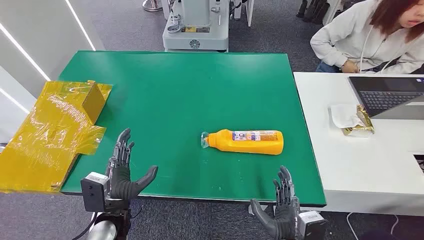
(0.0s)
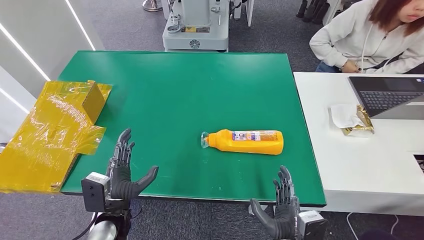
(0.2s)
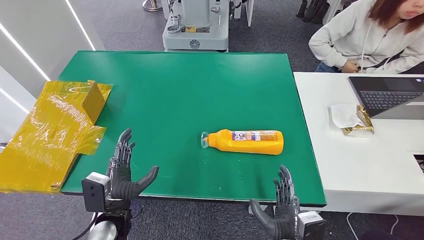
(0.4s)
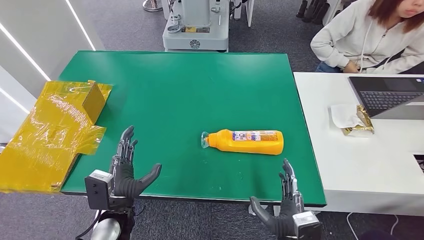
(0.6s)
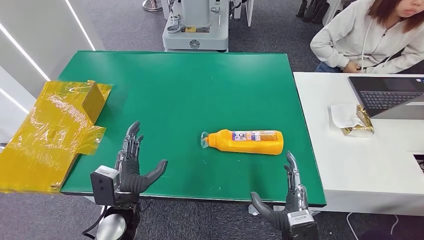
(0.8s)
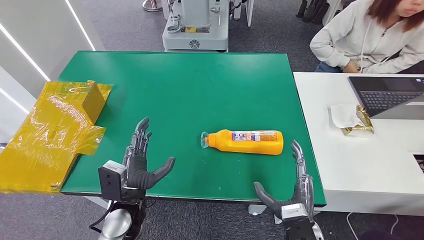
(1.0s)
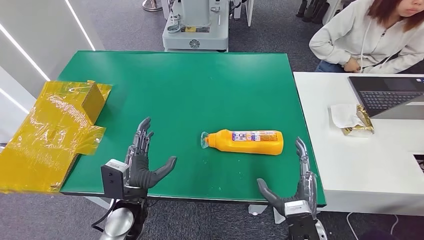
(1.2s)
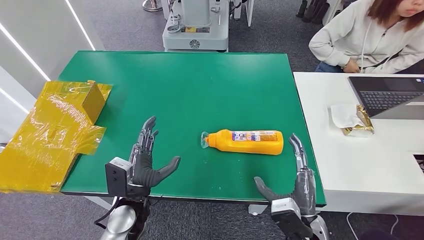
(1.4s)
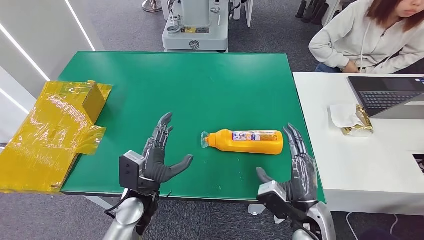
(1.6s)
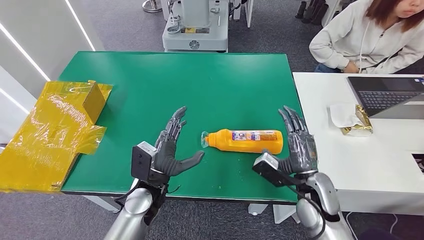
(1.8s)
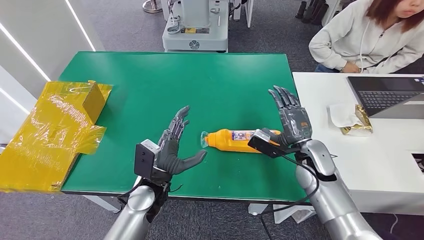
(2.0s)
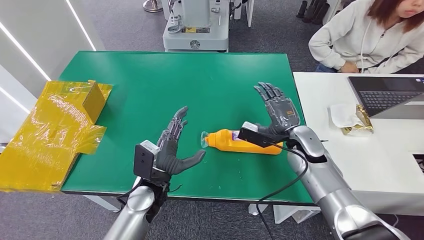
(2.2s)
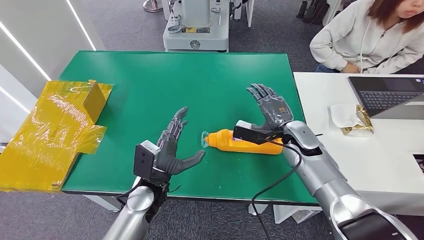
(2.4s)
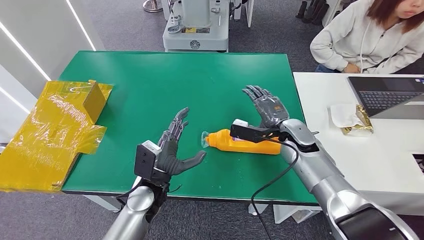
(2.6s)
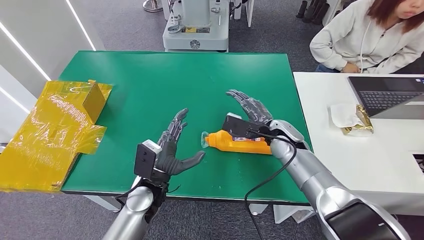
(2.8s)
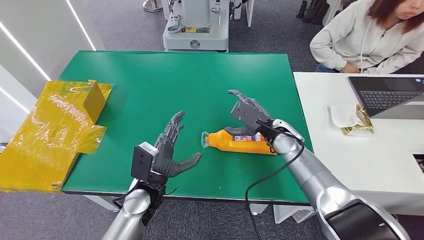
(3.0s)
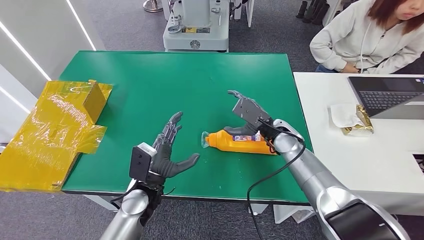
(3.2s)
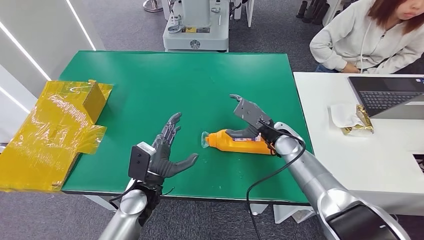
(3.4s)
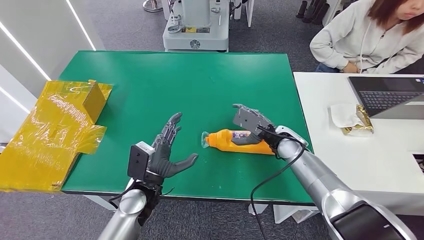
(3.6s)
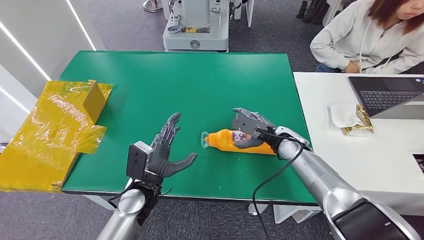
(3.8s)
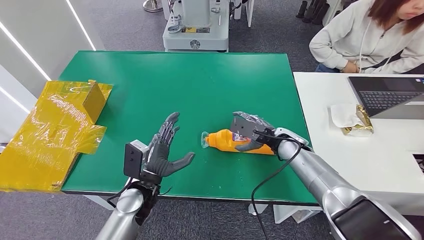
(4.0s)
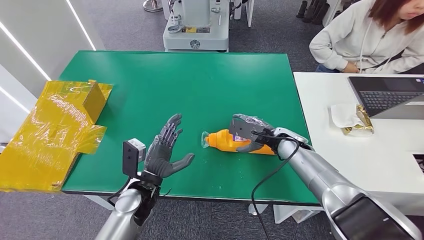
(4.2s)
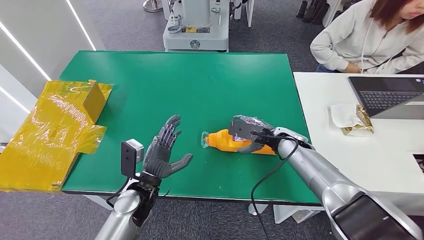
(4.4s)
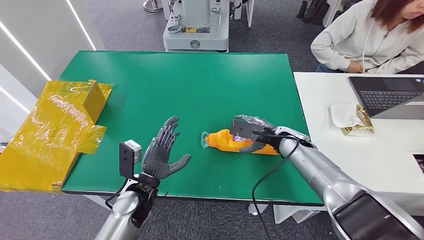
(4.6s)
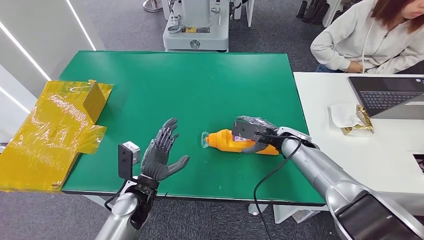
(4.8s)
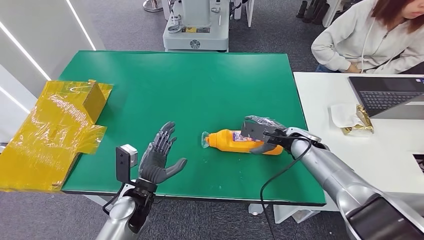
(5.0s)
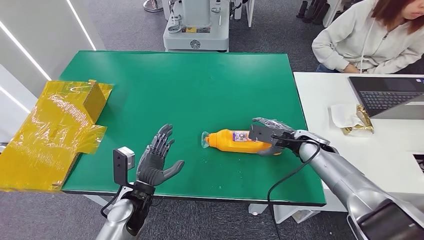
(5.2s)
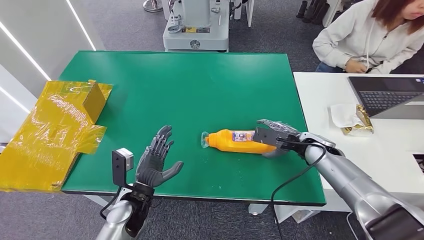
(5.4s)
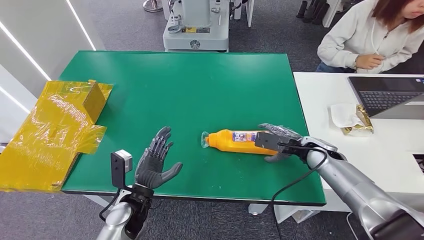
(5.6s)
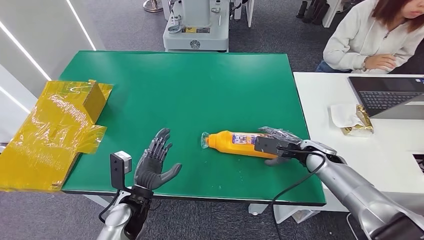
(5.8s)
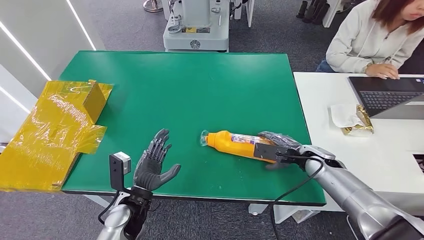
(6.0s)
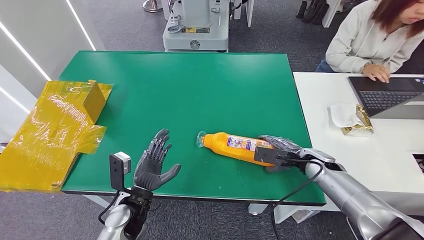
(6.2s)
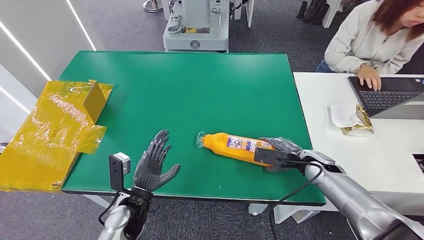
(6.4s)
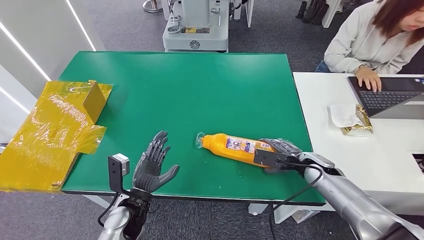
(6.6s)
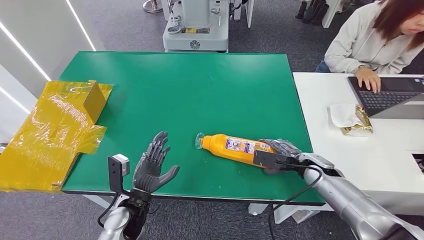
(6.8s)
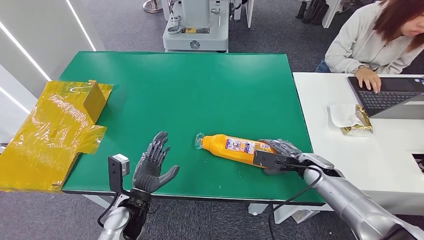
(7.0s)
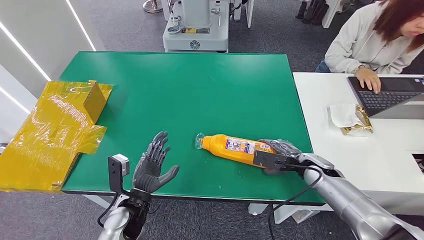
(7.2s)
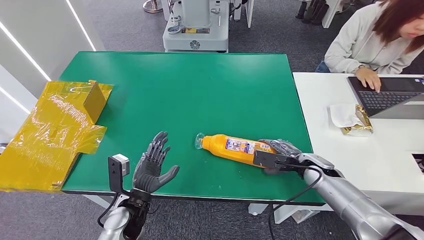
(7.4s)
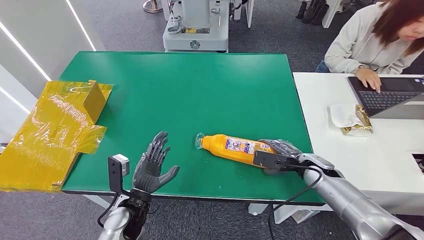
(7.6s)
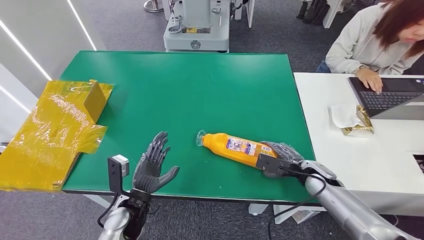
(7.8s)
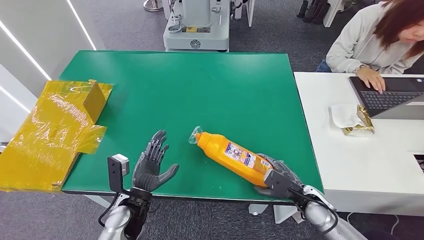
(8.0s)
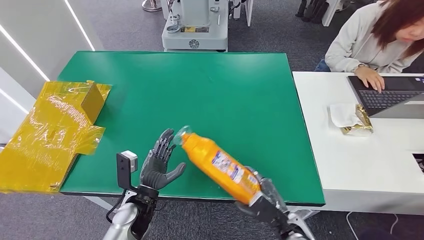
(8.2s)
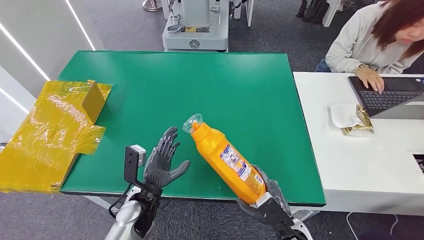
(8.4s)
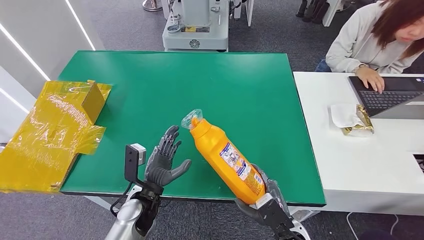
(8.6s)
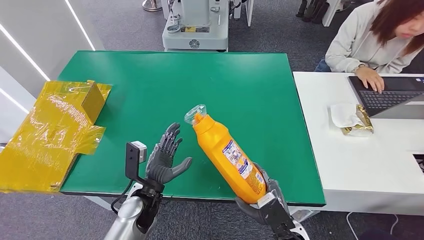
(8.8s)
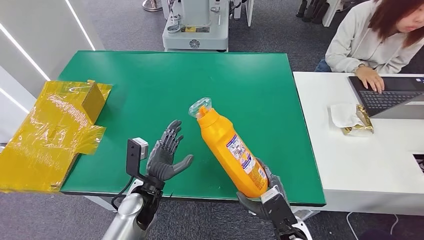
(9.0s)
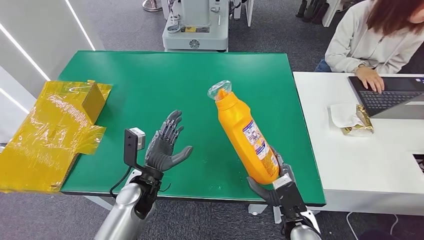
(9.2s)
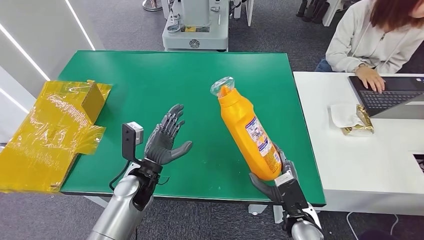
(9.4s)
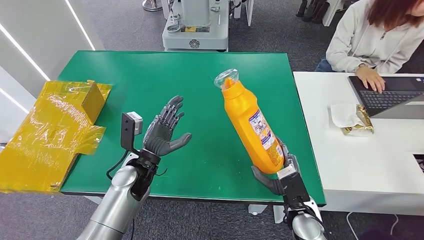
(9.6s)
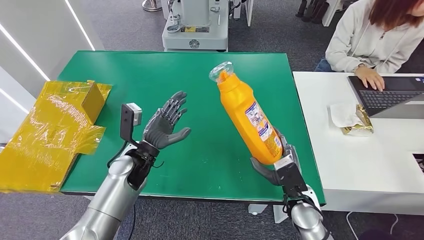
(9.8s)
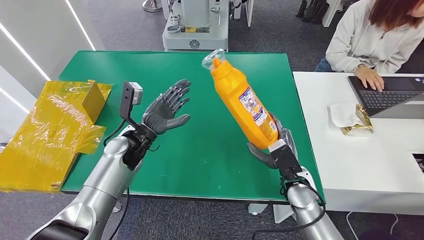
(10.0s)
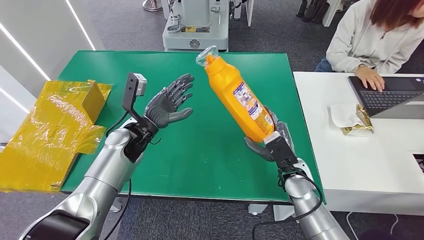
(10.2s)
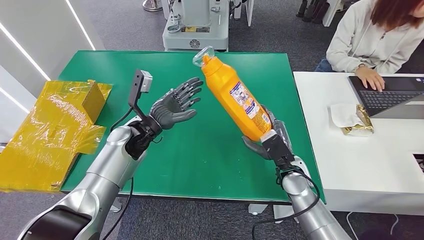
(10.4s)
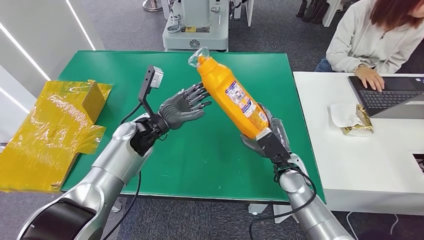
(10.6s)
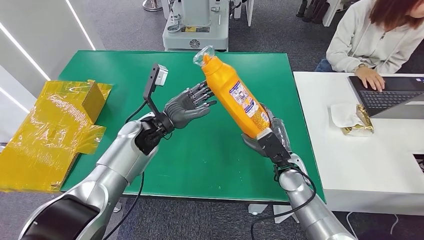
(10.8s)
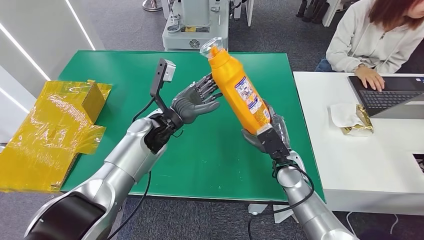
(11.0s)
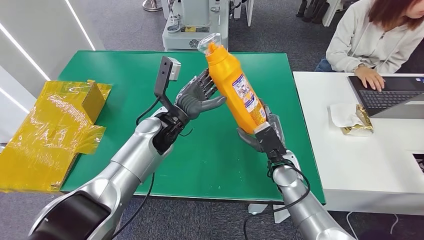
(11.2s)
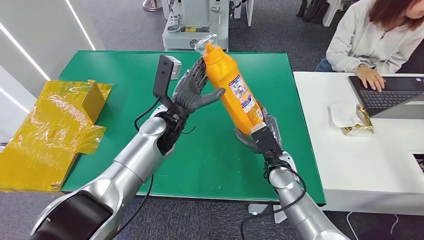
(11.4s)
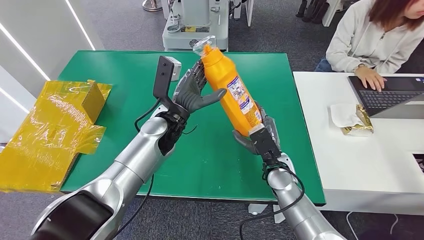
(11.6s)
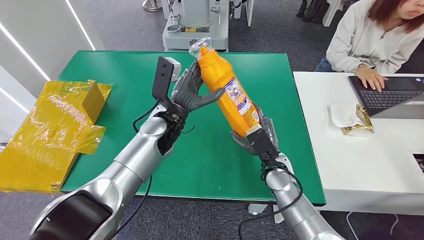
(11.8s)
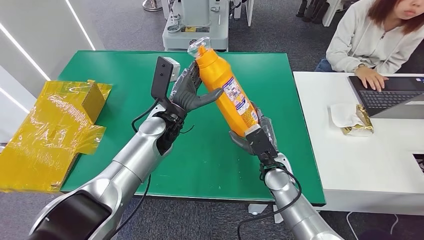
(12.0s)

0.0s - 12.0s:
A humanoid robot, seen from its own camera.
Step, 0.0s - 10.0s: Pick up the bottle from the table.
1.6s - 3.0s: The right hand heads forward, covering some 20 cm.
4.4s - 6.0s: The right hand heads to the right, covering some 10 cm.
6.0s - 7.6s: The hands make only small movements.
7.6s - 9.0s: The right hand is displaced backward and to the left by some 20 cm.
10.4s - 12.0s: The left hand heads to the right, covering some 5 cm.

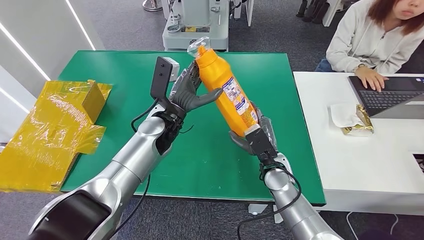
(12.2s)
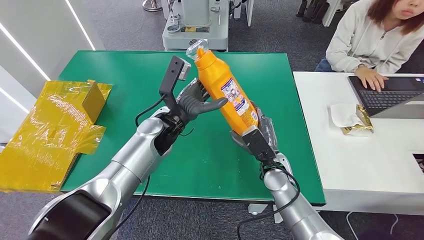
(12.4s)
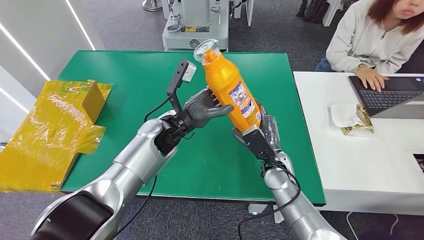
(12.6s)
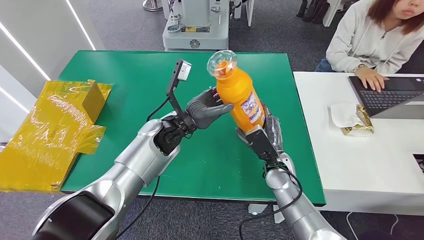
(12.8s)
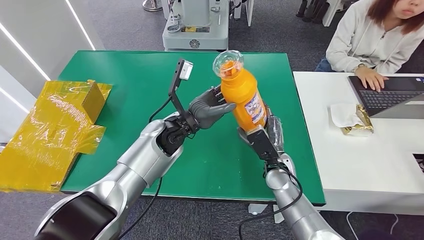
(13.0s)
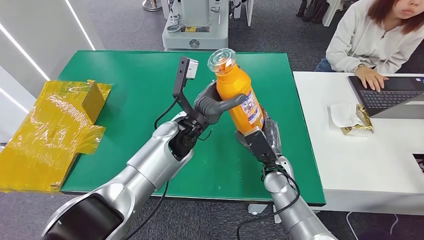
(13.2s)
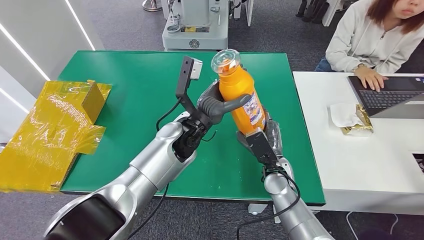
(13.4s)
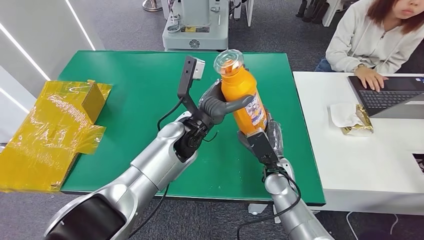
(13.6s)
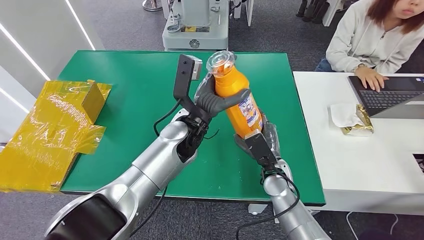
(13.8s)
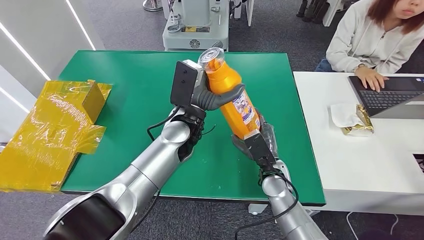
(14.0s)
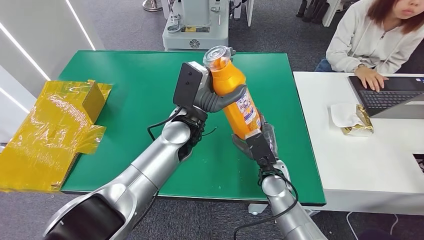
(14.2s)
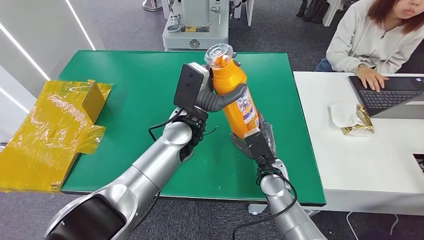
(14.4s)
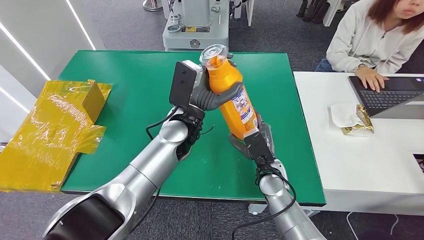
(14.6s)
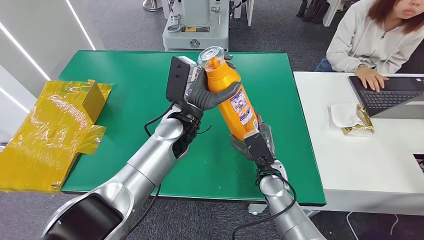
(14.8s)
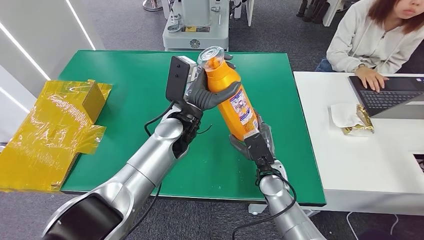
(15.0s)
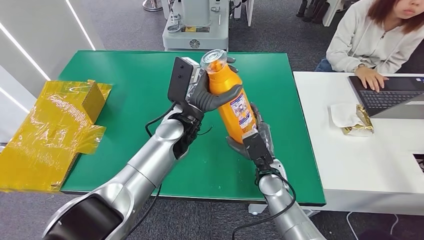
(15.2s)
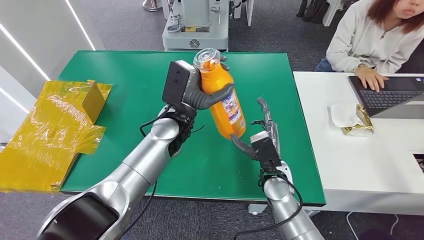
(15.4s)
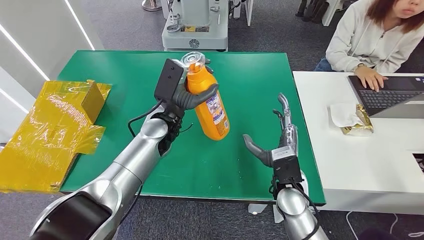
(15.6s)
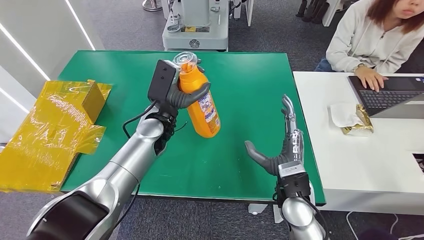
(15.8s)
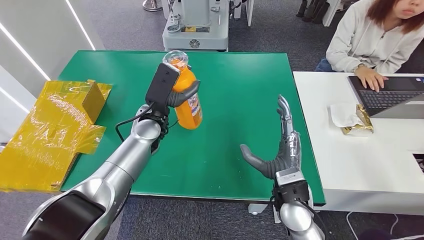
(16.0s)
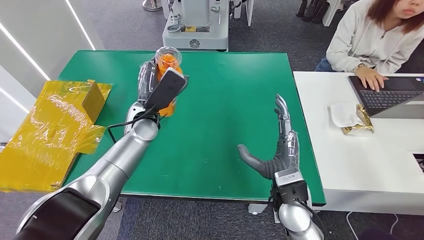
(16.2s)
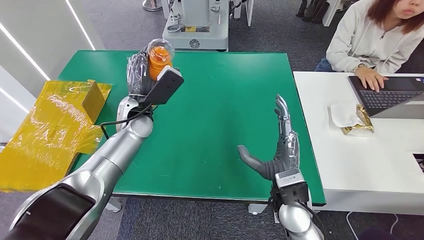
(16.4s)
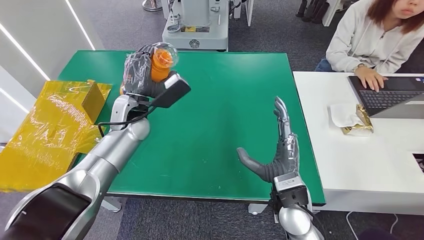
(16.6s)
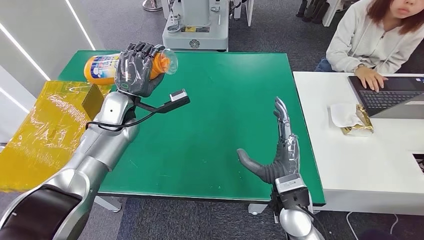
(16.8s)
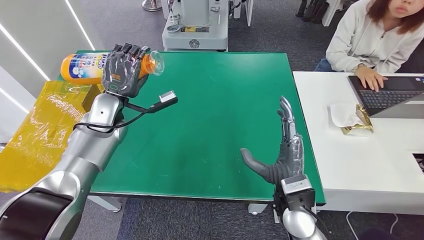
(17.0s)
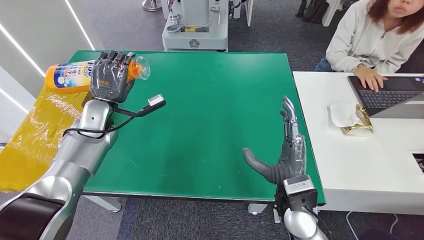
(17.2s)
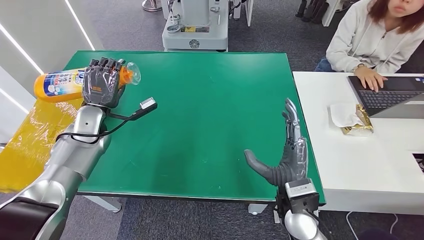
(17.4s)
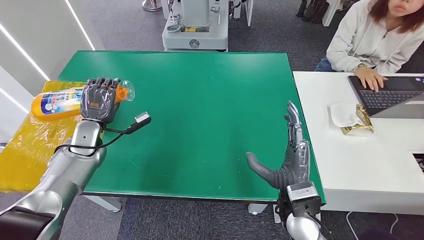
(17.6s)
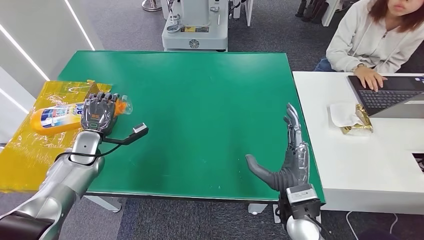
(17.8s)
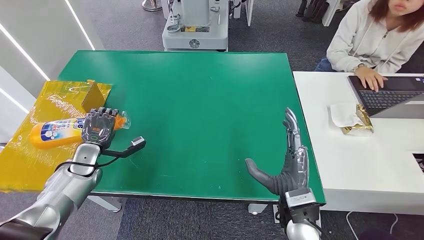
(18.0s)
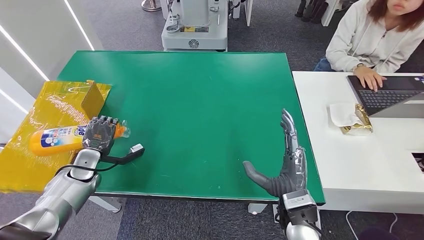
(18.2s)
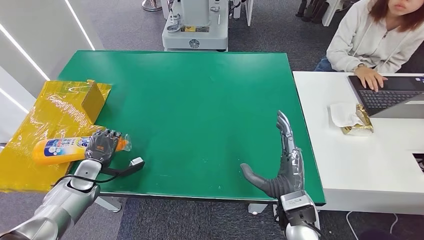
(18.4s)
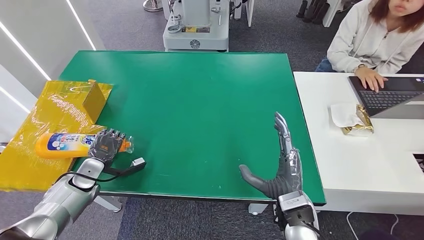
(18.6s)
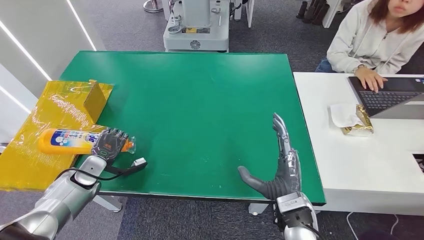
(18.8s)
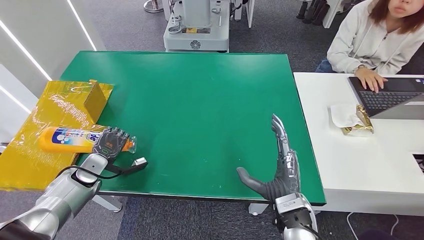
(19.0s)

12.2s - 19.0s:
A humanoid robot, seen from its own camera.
12.2s - 13.6s: The left hand travels to the right by roughly 5 cm.
16.2s - 17.6s: The left hand shifts about 15 cm to the left.
17.6s - 19.0s: The left hand heads downward and backward, covering roughly 10 cm.
